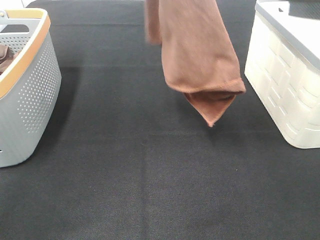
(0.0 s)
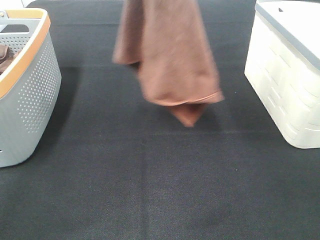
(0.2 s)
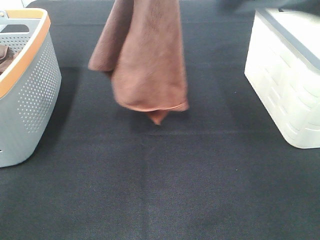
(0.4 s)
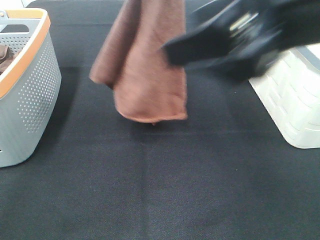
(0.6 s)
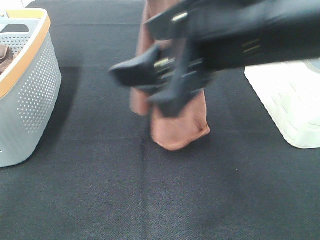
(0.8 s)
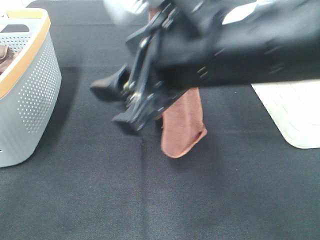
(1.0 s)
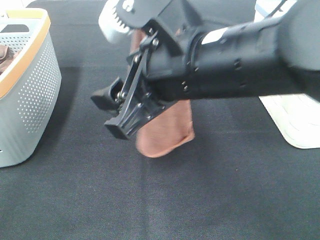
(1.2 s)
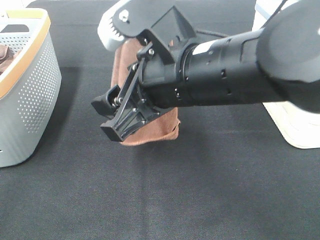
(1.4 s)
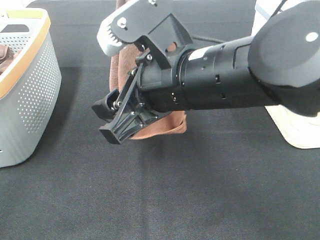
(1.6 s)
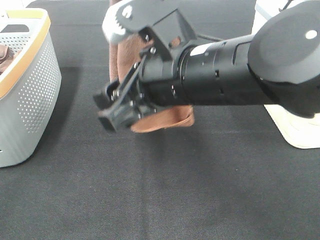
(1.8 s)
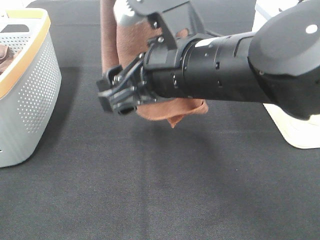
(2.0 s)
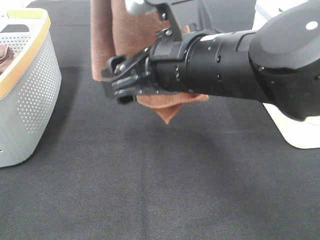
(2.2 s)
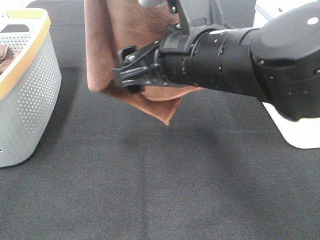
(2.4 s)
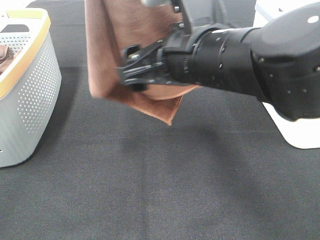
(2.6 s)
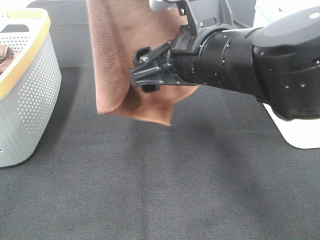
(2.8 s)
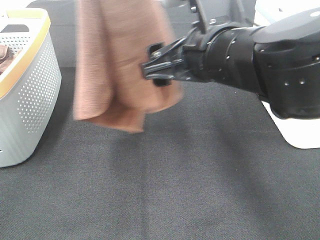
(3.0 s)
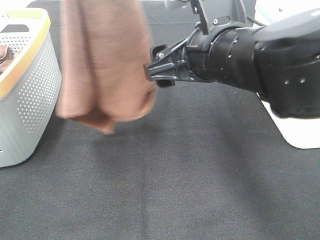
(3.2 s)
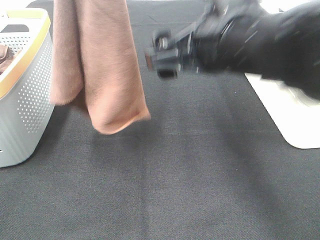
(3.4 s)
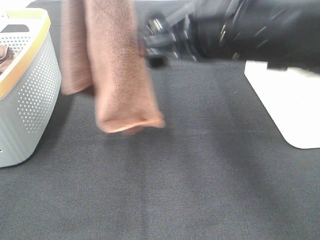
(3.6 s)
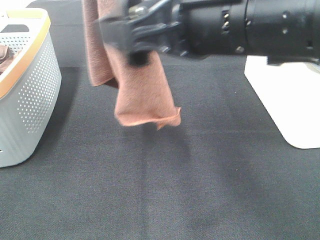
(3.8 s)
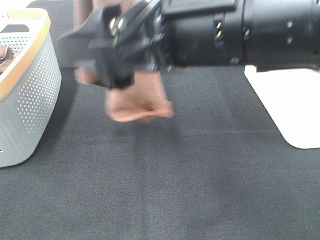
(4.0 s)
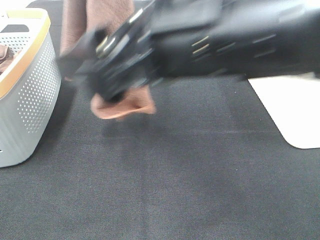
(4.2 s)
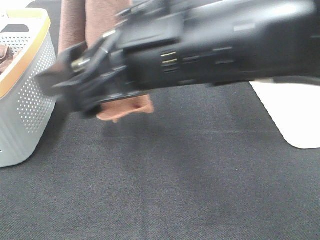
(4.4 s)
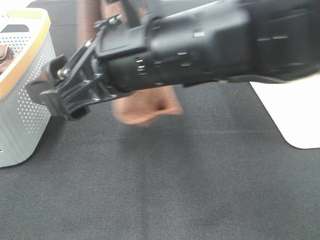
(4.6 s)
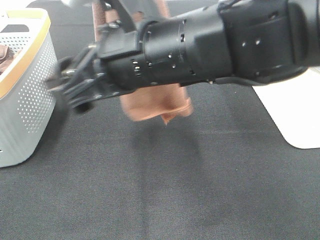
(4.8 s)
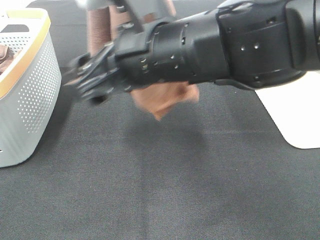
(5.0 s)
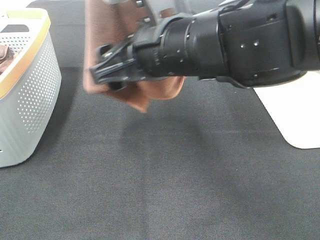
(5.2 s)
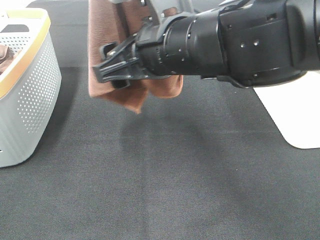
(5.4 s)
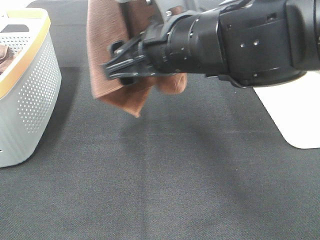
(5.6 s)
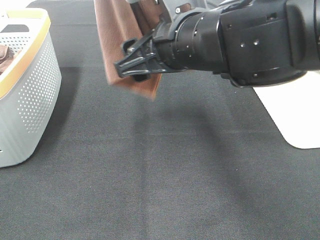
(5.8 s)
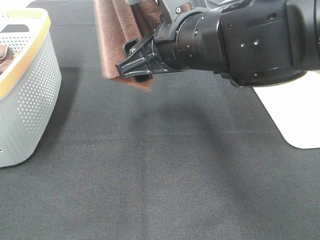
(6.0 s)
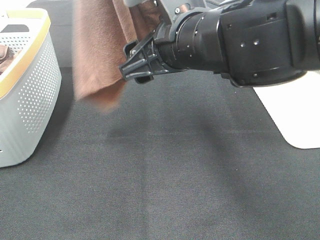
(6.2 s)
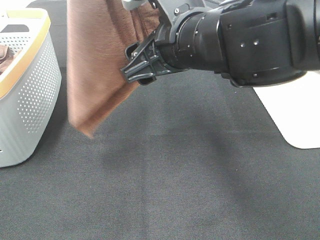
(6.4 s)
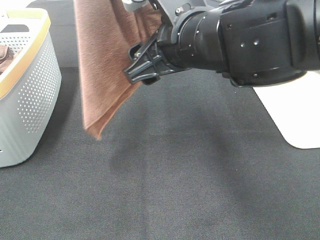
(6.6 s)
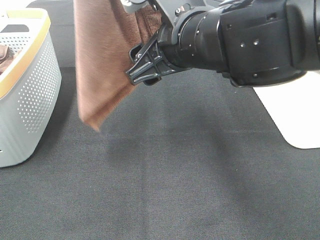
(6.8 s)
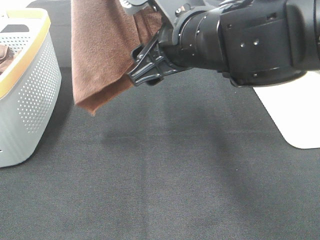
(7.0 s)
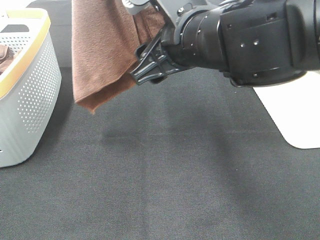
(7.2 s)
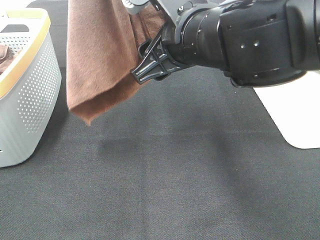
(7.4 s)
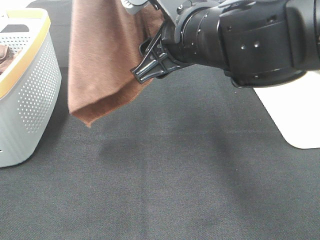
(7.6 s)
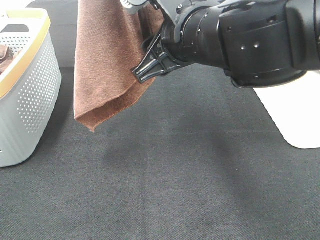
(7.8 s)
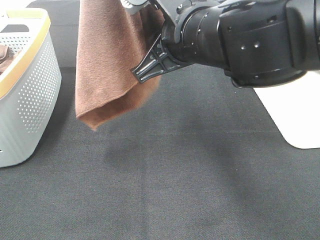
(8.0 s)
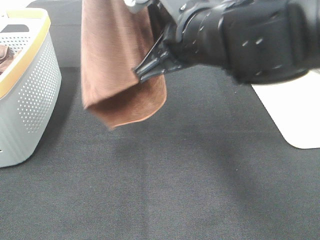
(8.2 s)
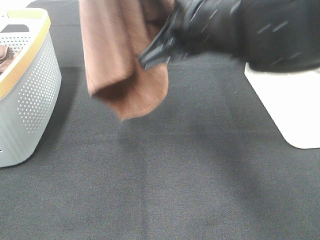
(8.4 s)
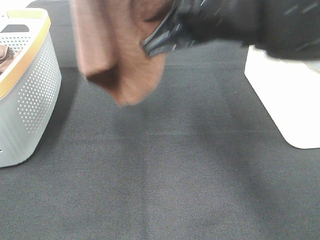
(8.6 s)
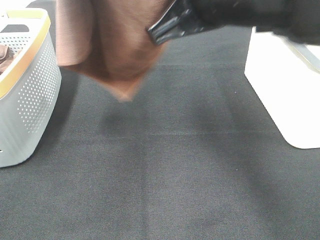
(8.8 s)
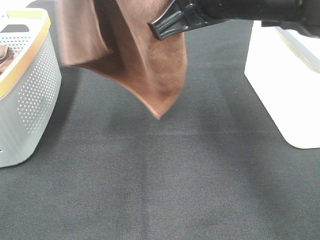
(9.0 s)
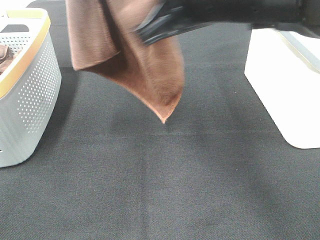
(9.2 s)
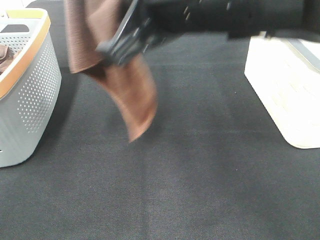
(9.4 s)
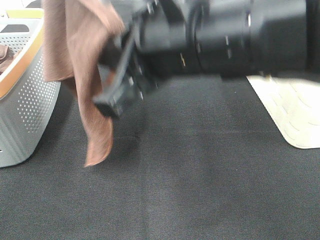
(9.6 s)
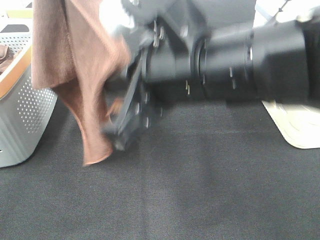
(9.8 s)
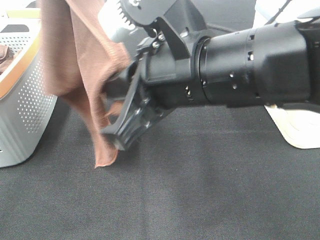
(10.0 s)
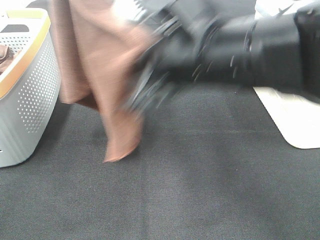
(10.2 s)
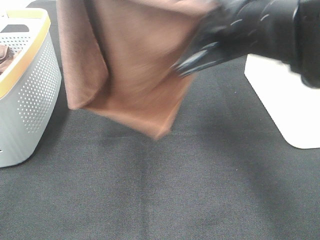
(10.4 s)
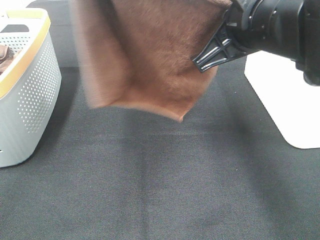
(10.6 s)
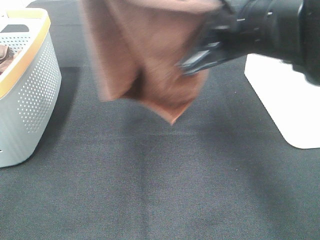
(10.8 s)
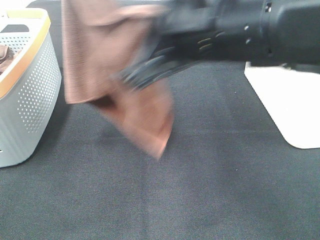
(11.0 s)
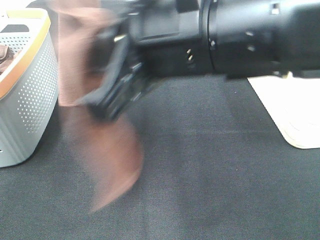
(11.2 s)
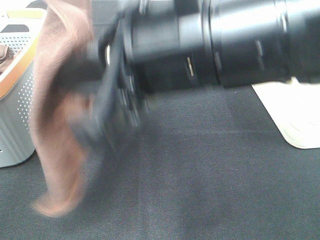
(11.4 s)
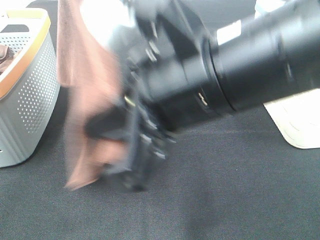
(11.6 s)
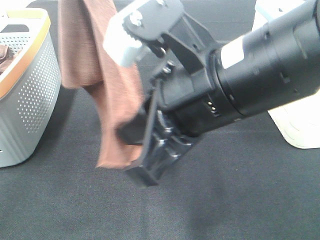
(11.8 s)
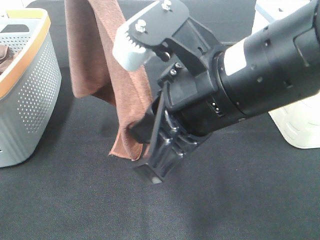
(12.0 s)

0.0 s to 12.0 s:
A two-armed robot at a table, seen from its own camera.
Task of the whole recording: Remove the towel and place it.
Step, 0.0 to 8.2 s: Right hand: grab a corner of the brown towel and straighten it.
Step, 8.4 to 11.6 s: Left hand: spread the brown towel flat on the table.
Step, 8.4 to 11.6 s: Right hand: spread the brown towel flat on the table.
0.0 to 1.6 s: The right gripper shifts about 20 cm to the left and downward. Meanwhile the left gripper shifts approximately 5 cm backward.
1.6 to 3.0 s: The right gripper ends up about 5 cm from where it was.
3.0 to 4.4 s: The right gripper heads to the left, covering approximately 5 cm.
4.4 to 6.0 s: The right gripper heads forward, covering about 5 cm.
6.0 to 7.6 s: The grippers move only a little.
7.6 to 9.0 s: The right gripper goes approximately 5 cm upward, and closes its fingers, while the left gripper goes about 5 cm forward.
10.4 to 12.0 s: The right gripper shifts roughly 10 cm backward and to the left.

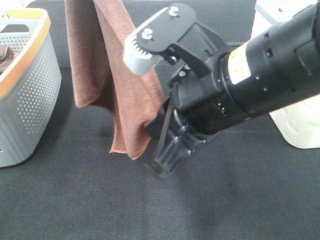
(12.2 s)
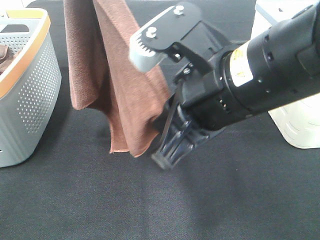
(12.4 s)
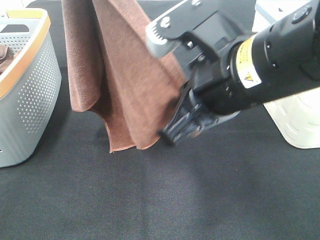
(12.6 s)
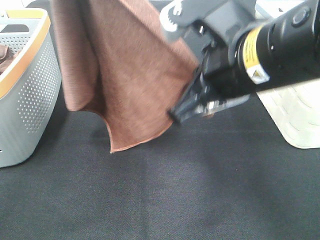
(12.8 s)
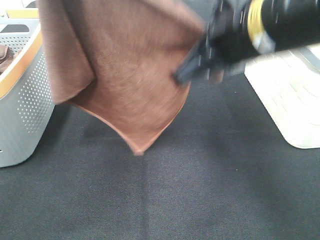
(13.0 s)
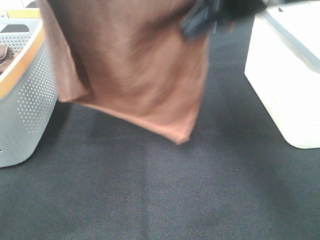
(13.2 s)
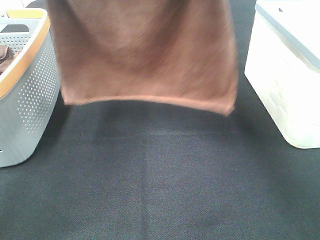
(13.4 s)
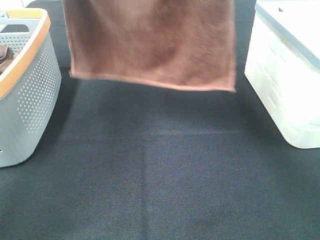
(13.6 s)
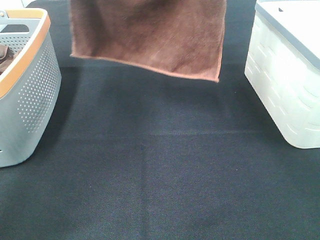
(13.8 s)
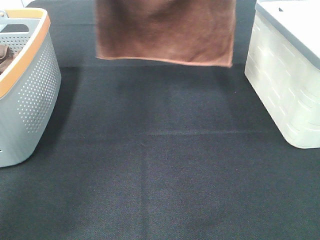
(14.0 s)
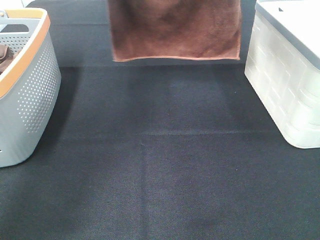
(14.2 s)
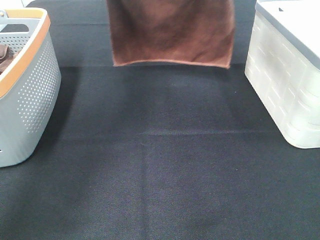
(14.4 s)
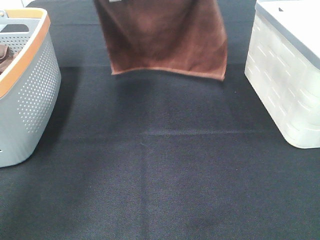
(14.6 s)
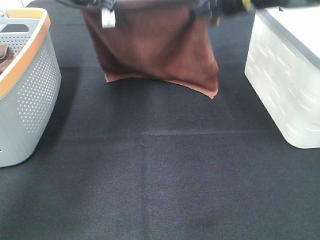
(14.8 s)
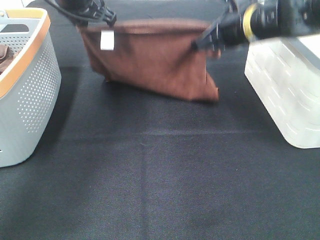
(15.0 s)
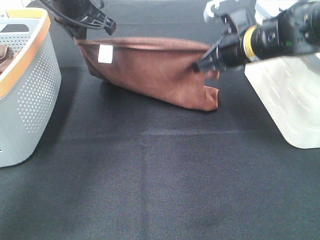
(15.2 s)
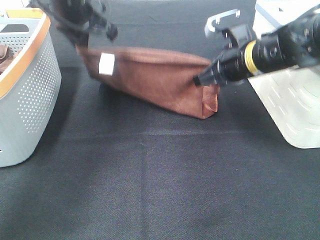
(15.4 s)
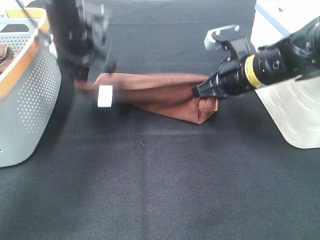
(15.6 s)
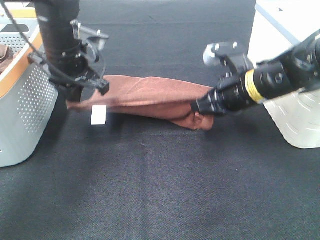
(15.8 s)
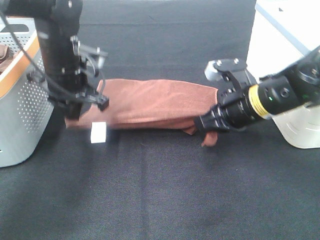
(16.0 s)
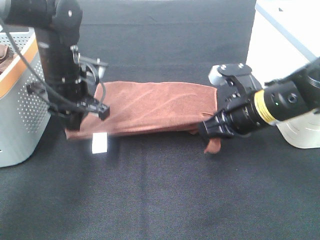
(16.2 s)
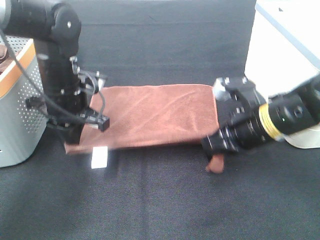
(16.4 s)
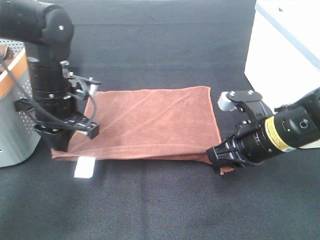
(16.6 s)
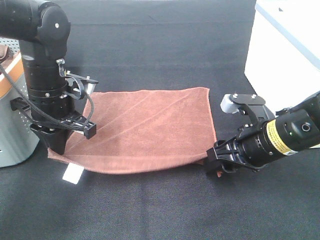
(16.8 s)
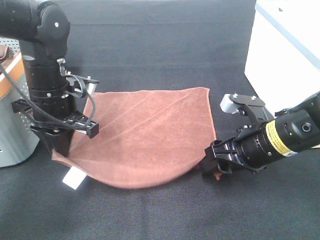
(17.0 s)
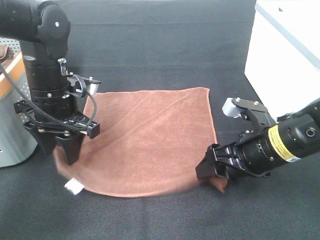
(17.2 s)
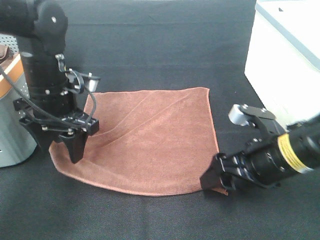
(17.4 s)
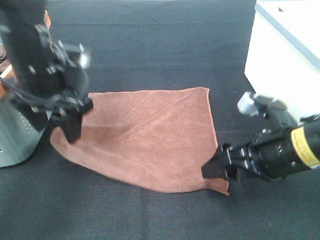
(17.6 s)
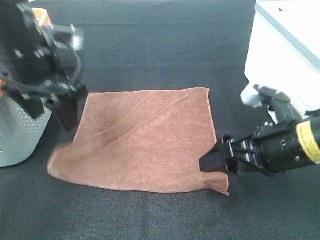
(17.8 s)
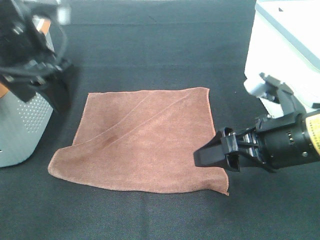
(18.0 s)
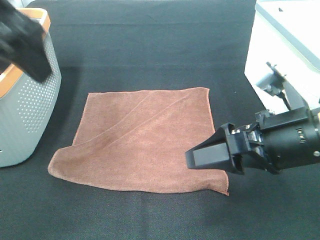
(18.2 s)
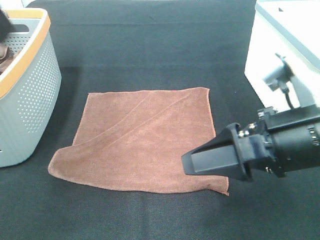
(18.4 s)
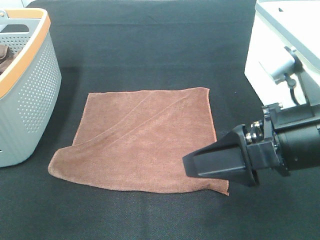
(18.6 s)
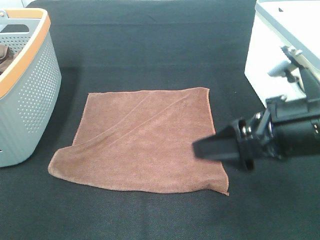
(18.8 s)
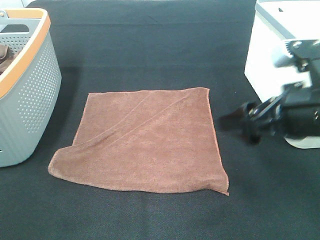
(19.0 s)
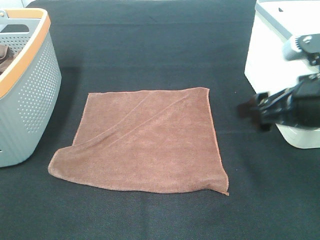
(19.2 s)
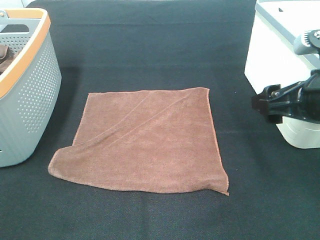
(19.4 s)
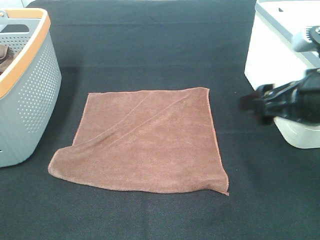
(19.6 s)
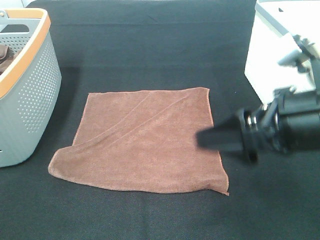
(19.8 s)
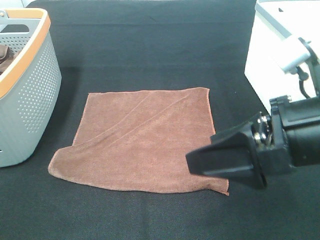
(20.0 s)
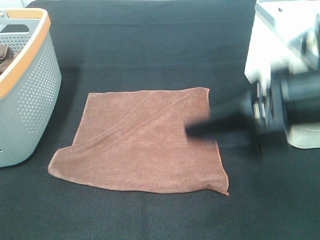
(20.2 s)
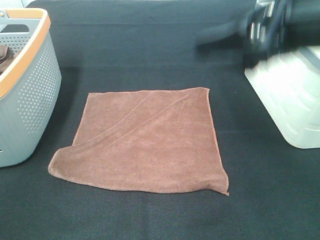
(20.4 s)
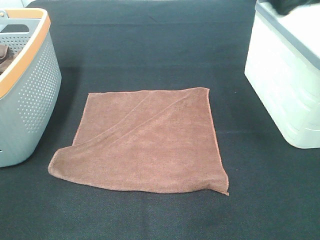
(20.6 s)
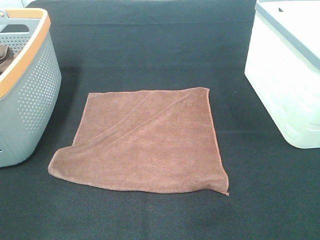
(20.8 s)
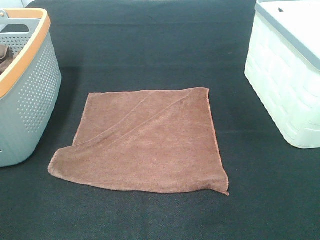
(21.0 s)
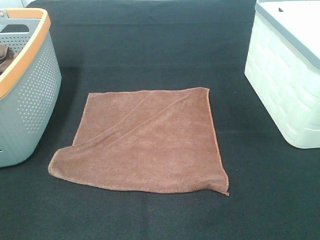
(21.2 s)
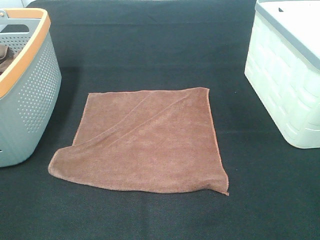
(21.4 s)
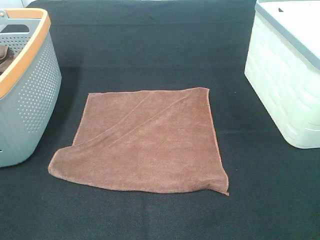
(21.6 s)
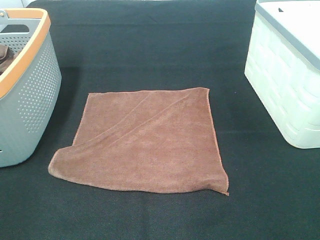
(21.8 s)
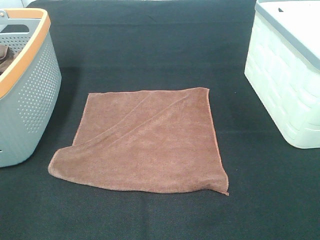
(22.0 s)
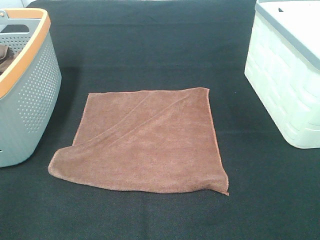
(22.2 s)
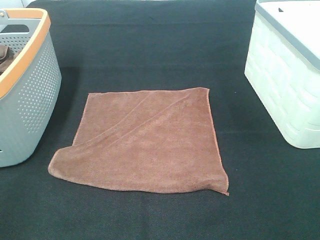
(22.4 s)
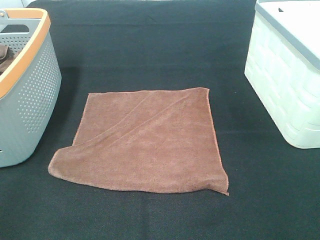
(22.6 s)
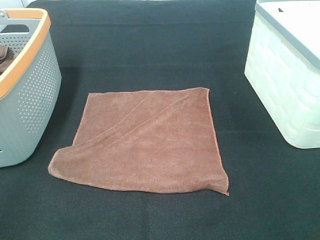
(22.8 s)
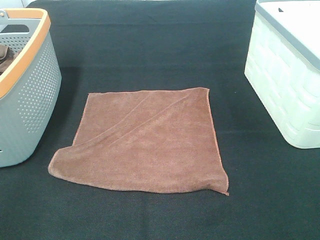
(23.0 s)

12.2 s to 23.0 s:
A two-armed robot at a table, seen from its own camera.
Task of the whole recording: Remove the towel and place it.
12.2 to 13.8 s: The right gripper moves forward and upward, roughly 20 cm, while the left gripper shifts about 10 cm forward.
13.8 to 15.2 s: The two grippers go some 15 cm downward.
15.2 to 16.8 s: The right gripper is displaced backward and downward by some 15 cm, and opens. Meanwhile the left gripper is displaced downward and backward by about 15 cm.
16.8 to 18.4 s: The right gripper moves upward and backward, some 15 cm, while the left gripper is displaced upward and backward by about 30 cm, and opens.
18.4 to 20.0 s: The left gripper travels backward and to the left by about 20 cm.
20.0 to 21.4 s: The right gripper travels upward and to the right by roughly 15 cm.
